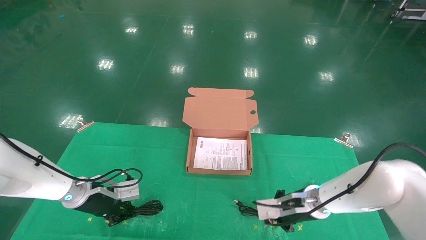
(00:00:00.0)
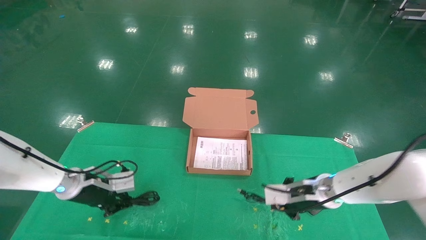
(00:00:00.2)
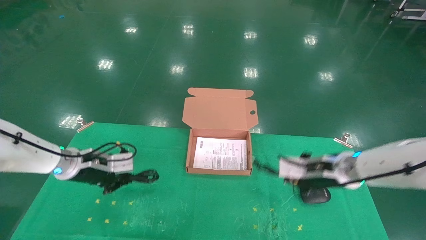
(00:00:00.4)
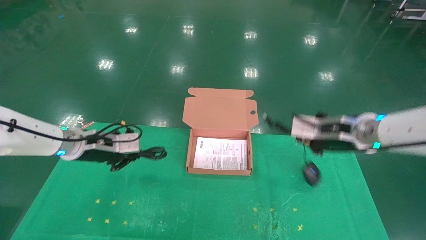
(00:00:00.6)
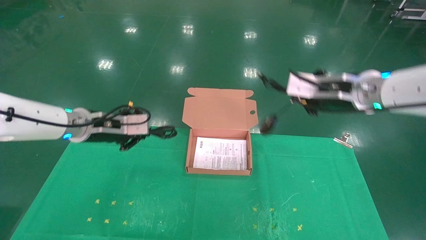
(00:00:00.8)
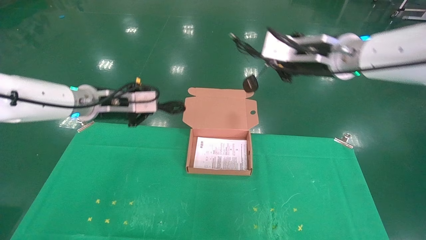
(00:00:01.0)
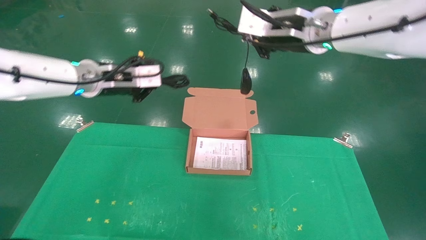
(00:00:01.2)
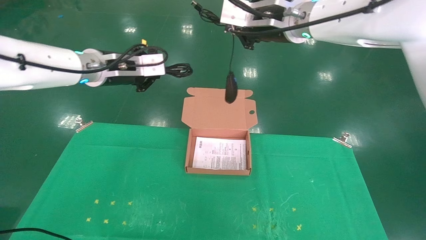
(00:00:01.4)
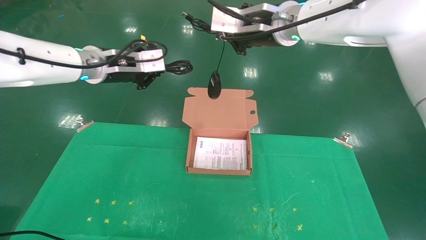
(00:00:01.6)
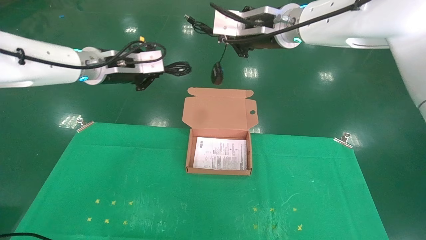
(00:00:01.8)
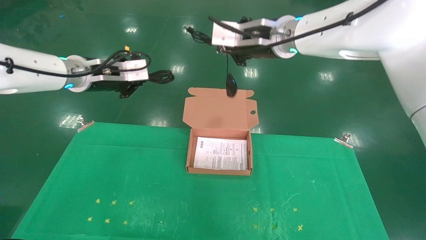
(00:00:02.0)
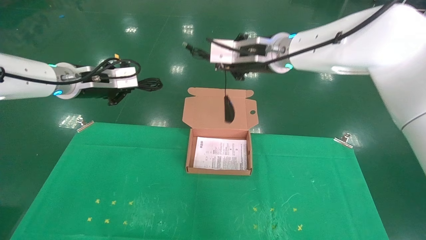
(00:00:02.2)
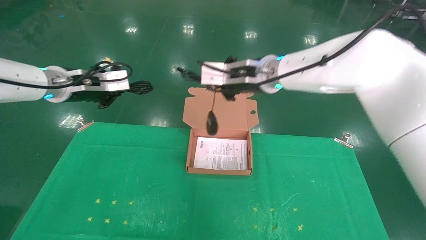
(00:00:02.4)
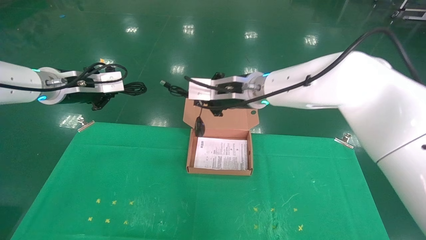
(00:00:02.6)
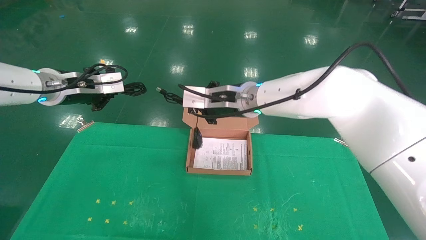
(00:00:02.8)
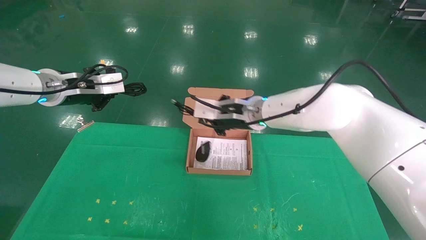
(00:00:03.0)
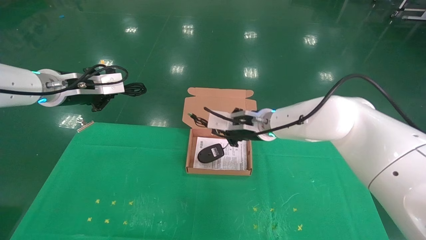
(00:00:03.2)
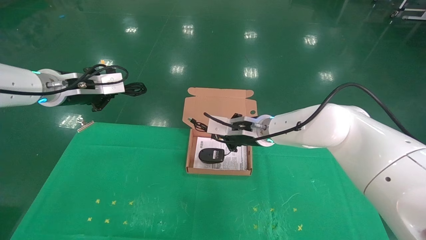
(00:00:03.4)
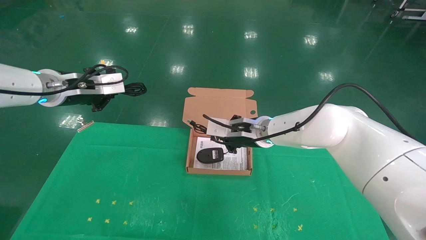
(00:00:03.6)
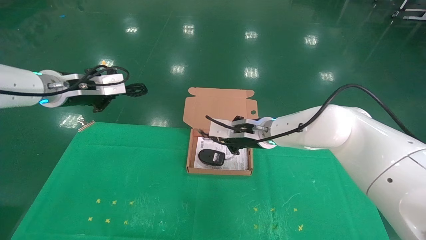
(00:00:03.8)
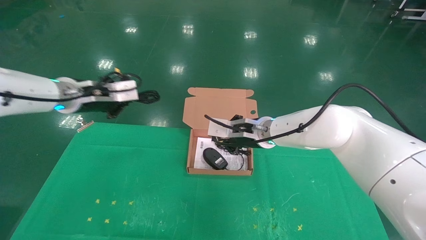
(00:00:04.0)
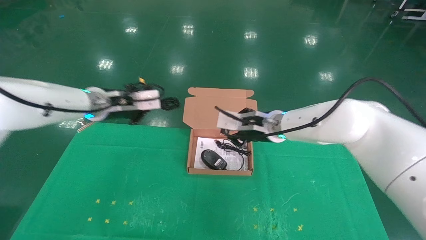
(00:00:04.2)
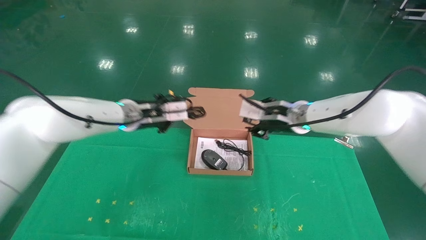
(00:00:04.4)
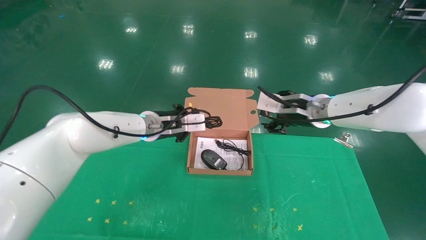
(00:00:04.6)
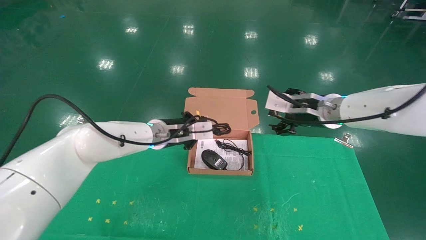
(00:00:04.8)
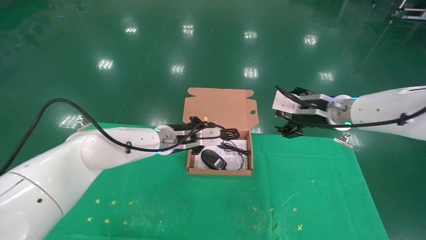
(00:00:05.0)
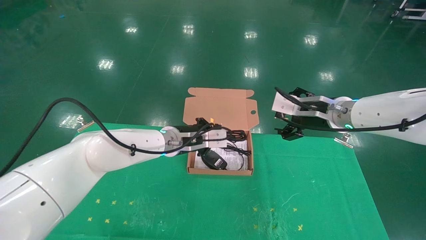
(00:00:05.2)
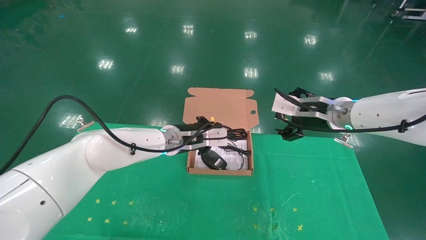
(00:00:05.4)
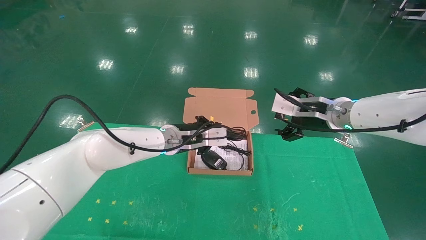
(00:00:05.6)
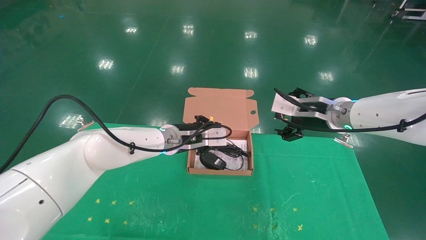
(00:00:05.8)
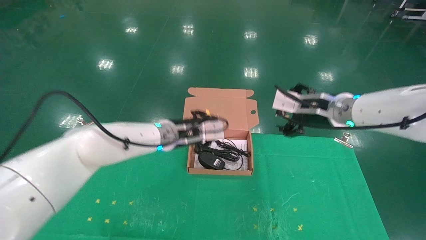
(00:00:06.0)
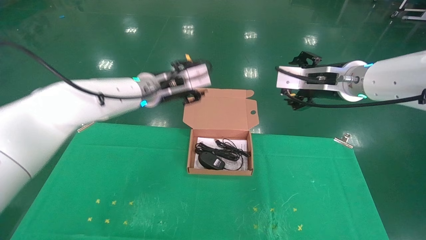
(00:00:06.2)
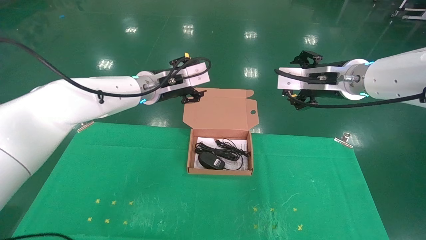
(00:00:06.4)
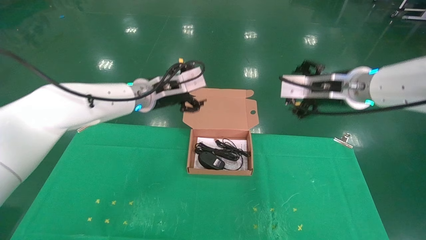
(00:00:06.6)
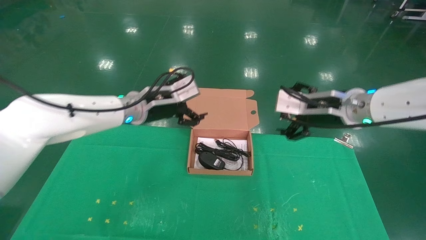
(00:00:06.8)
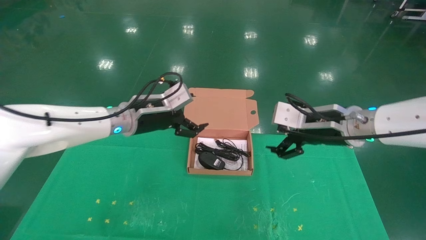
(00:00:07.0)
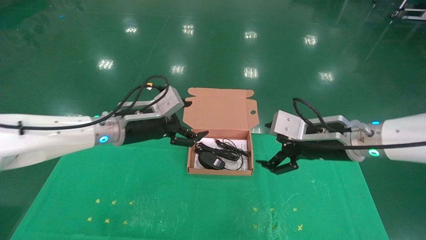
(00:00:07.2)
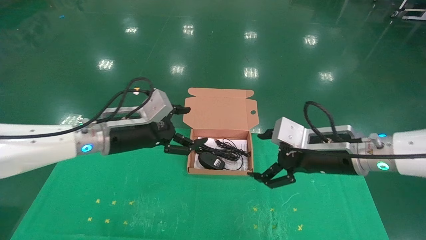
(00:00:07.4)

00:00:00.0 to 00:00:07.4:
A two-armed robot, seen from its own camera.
Task of the whole recording: grasp data cable left put into box grasp mouse right put into box.
Step, 00:00:00.0 to 00:00:05.4: Place the mouse and power cord into the box.
00:00:00.0 to 00:00:01.4: The two grippers go roughly 30 cm upward.
00:00:01.4 to 00:00:03.0: The left gripper heads to the left, covering roughly 10 cm. The right gripper is displaced downward by roughly 15 cm.
00:00:03.0 to 00:00:04.4: The left gripper goes some 15 cm to the right, downward and forward; the right gripper shifts about 10 cm to the right.
00:00:04.4 to 00:00:06.0: The right gripper heads to the right and upward, covering approximately 10 cm, and opens up; the left gripper goes roughly 5 cm to the right.
00:00:06.0 to 00:00:07.4: The right gripper travels backward and downward by about 10 cm. Meanwhile the left gripper goes roughly 10 cm to the left and backward, and opens.
